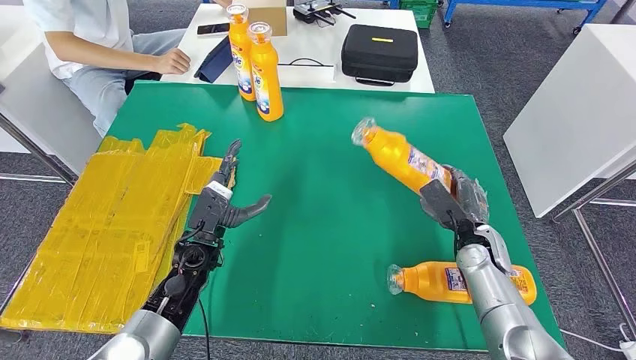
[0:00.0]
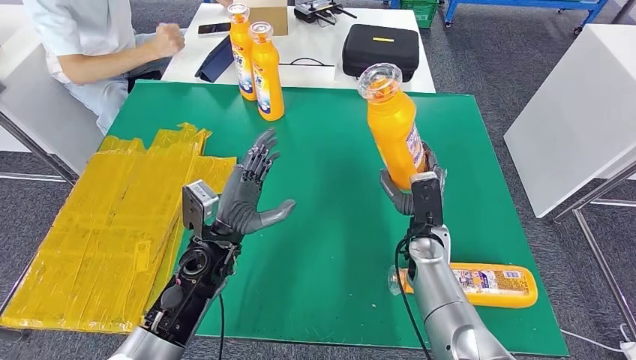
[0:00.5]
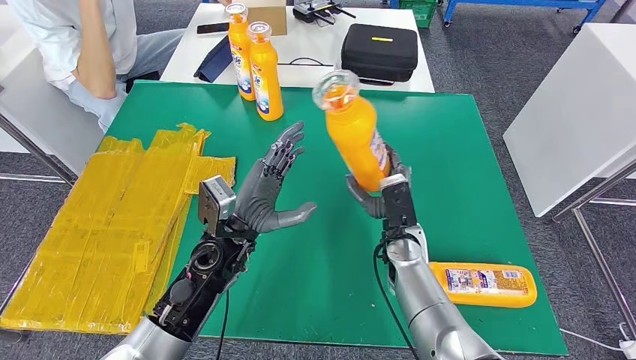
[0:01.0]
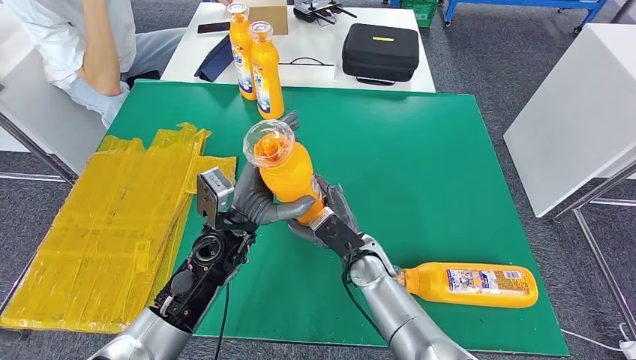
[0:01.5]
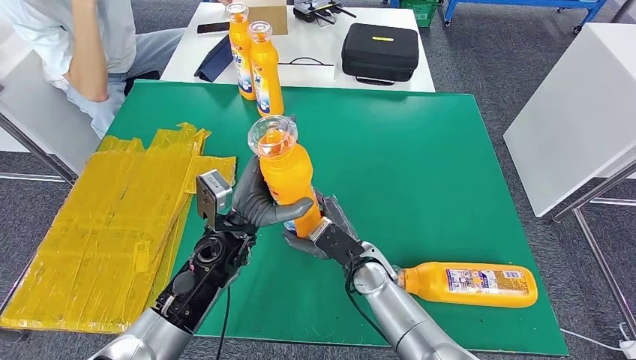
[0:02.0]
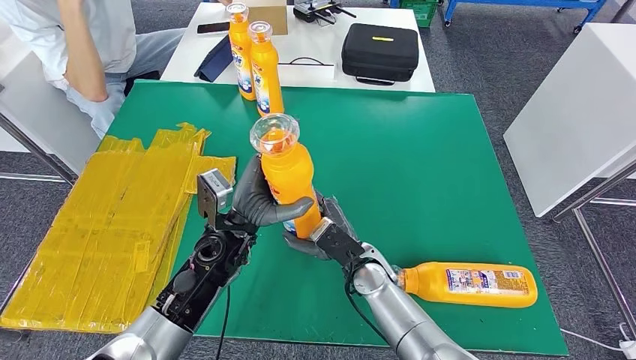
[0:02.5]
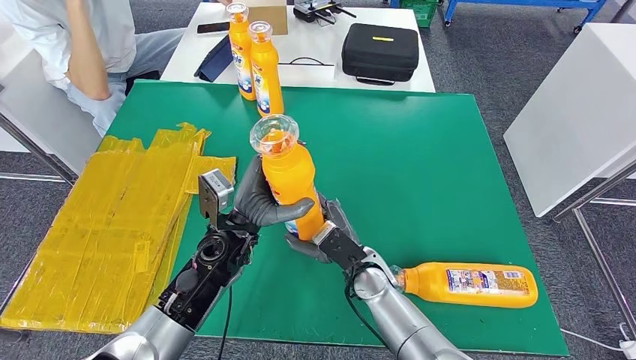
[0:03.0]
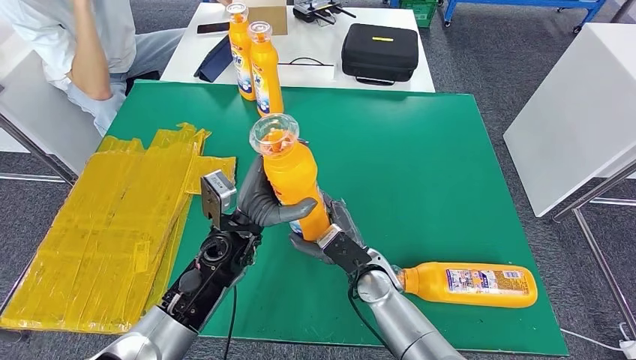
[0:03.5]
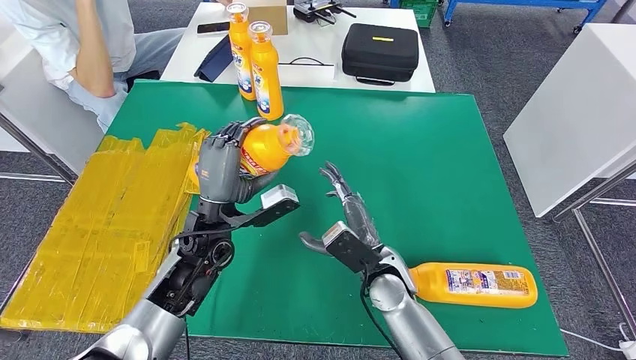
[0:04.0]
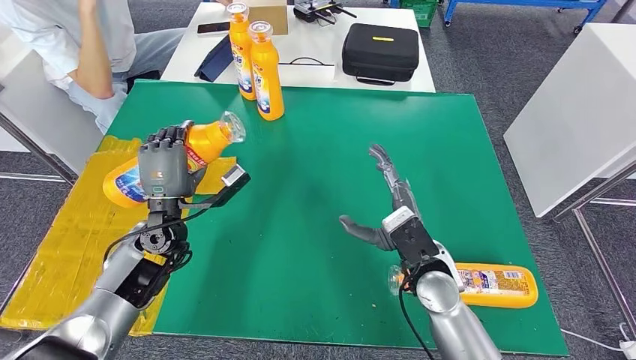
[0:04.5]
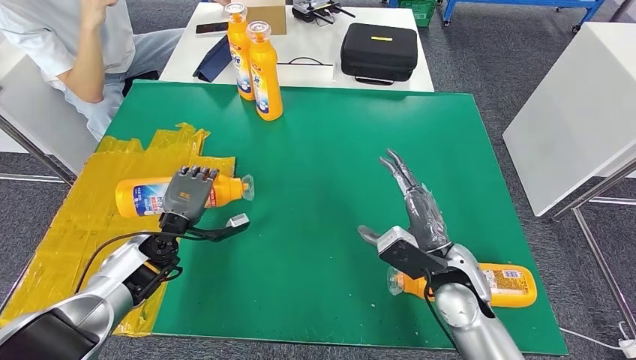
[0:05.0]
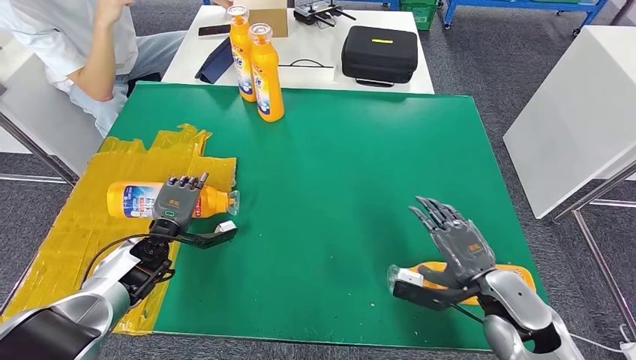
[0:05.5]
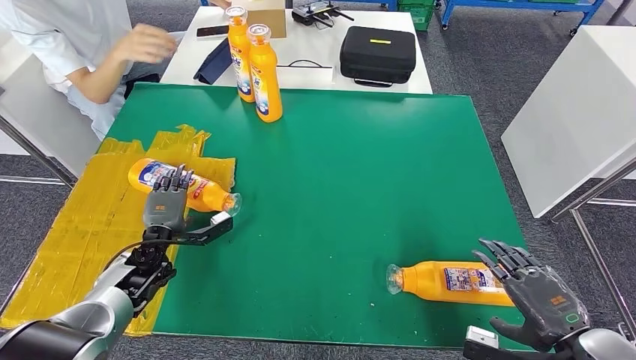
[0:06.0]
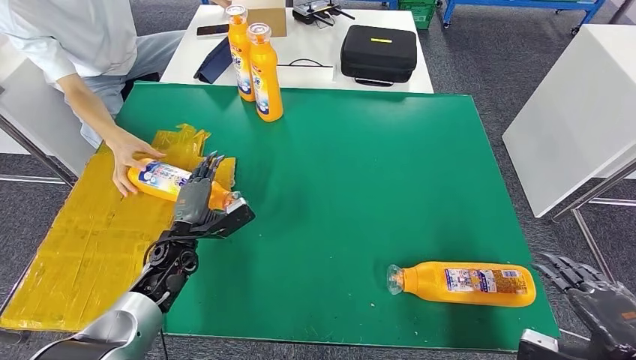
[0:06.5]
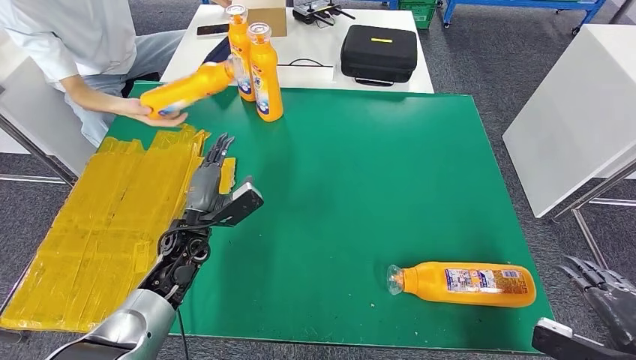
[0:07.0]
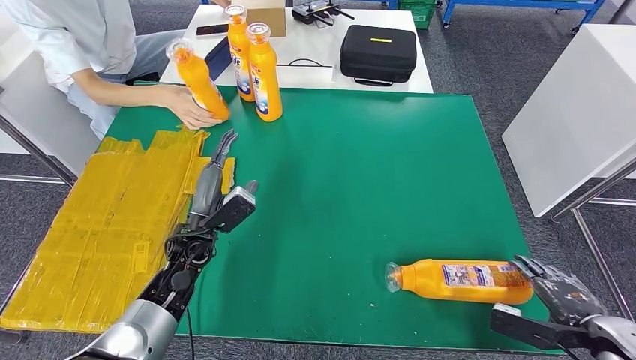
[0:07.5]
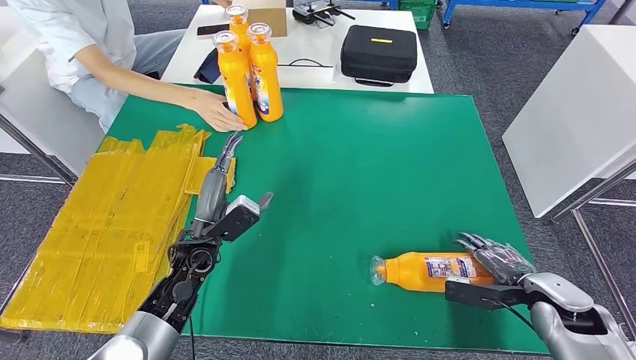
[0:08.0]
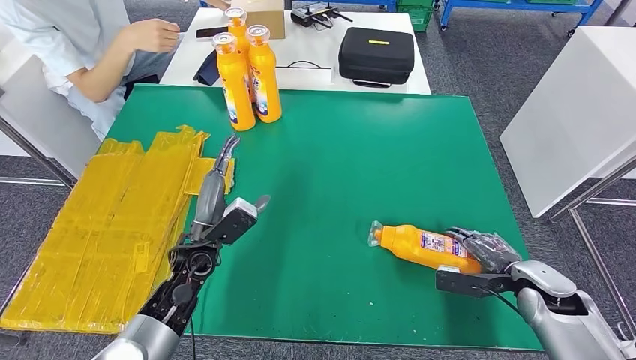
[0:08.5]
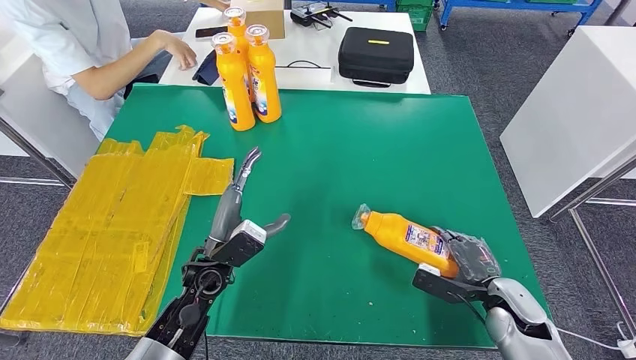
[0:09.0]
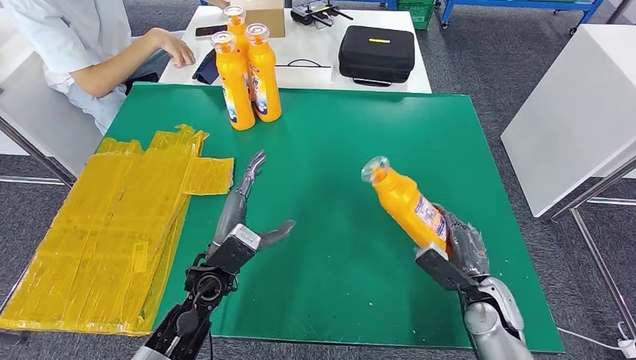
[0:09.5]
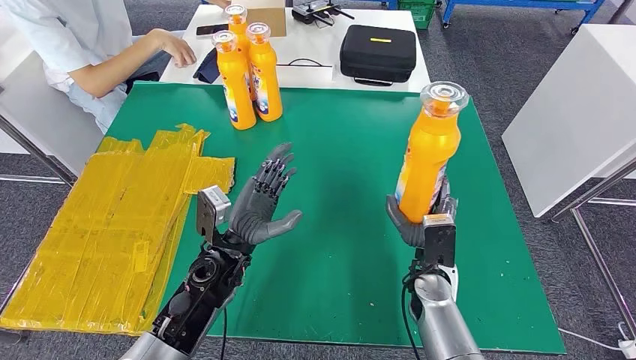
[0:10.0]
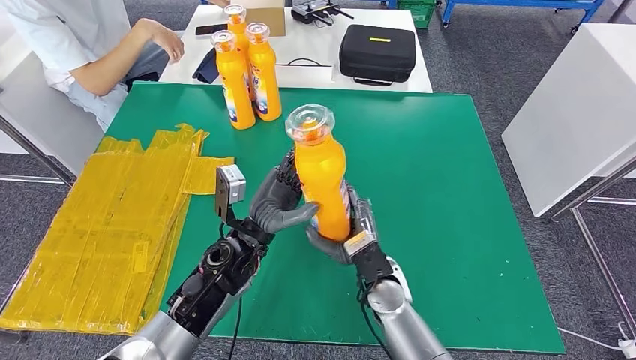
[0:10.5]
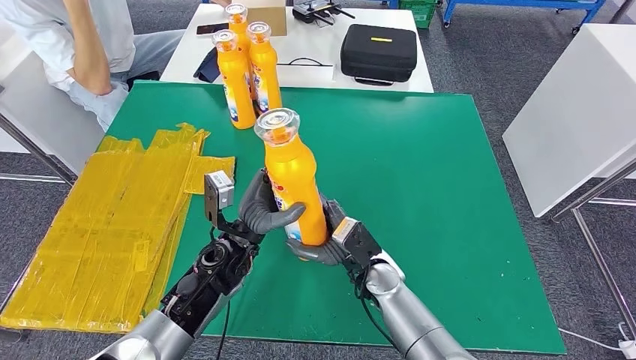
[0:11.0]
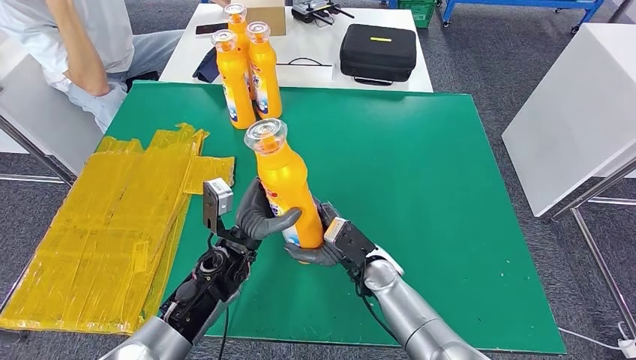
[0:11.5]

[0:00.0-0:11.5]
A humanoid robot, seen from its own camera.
Step, 0:02.5 to 0:06.0: Flip the fast-moving consumer goods bottle to the front side.
Step, 0:06.5 to 0:11.0: Pick up the fast-moving consumer goods bottle from the table.
0:06.0 to 0:07.5: The left hand moves to the right and upward, roughly 10 cm. The right hand goes some 5 cm to the right.

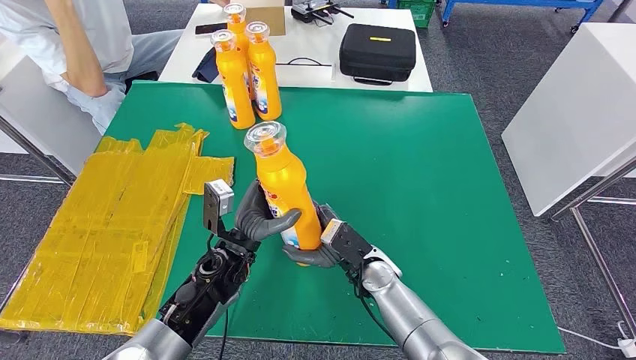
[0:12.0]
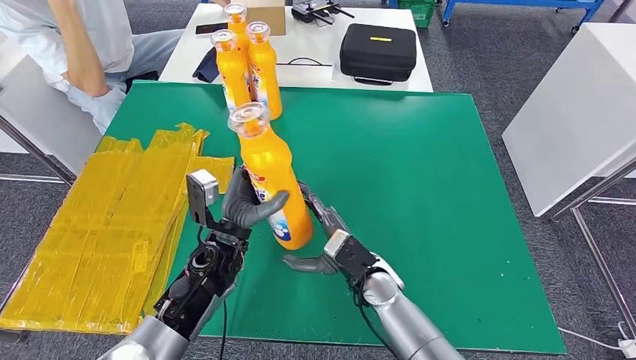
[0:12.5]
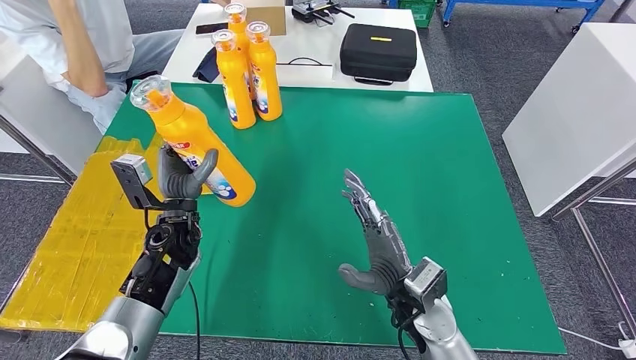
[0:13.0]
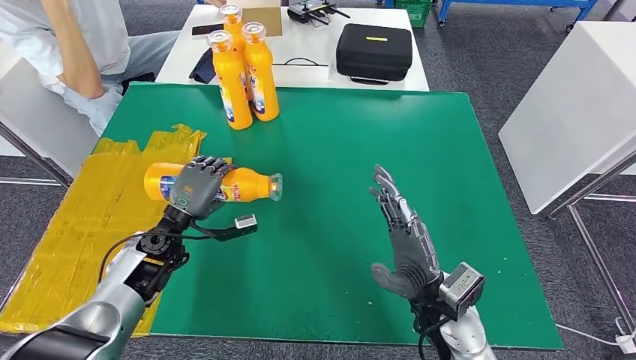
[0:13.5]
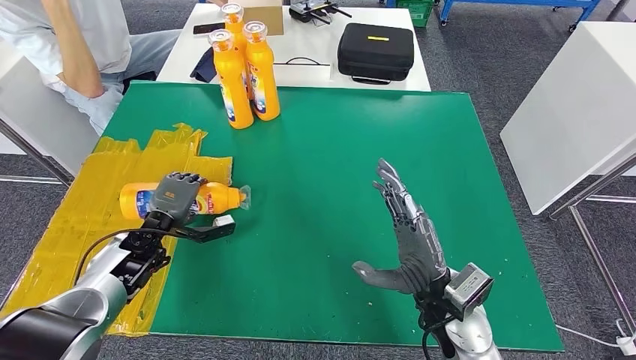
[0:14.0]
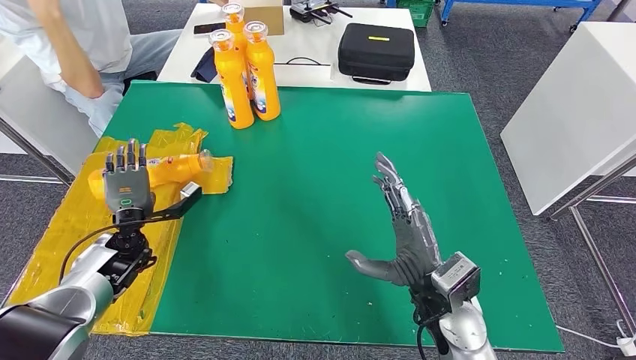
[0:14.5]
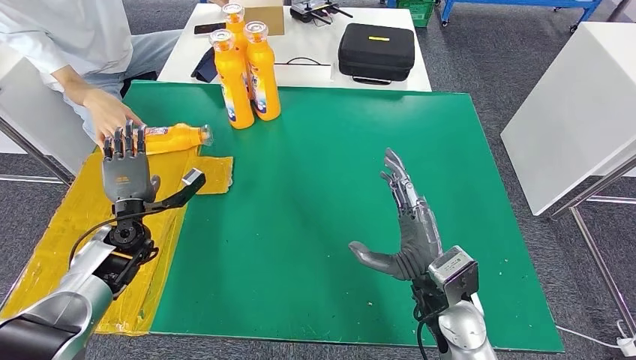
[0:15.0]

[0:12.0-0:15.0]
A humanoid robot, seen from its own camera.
Step, 0:12.0 to 0:15.0: Flip the fast-moving consumer goods bottle to the front side.
